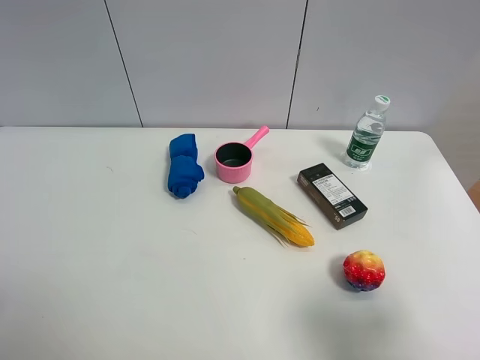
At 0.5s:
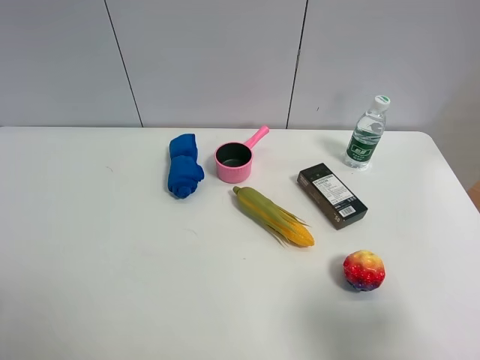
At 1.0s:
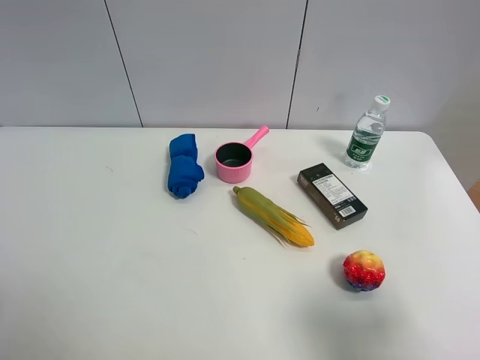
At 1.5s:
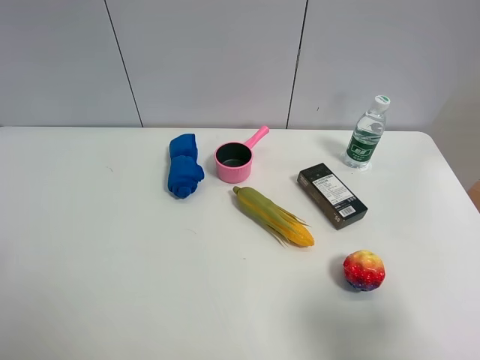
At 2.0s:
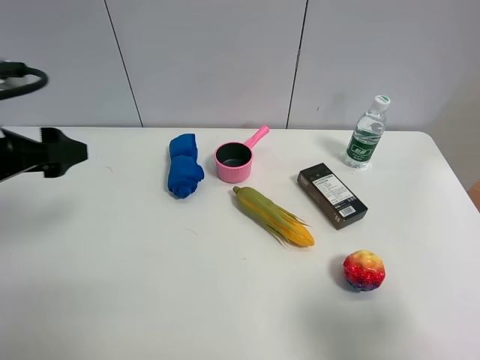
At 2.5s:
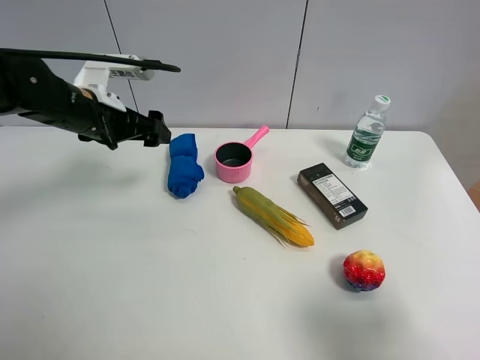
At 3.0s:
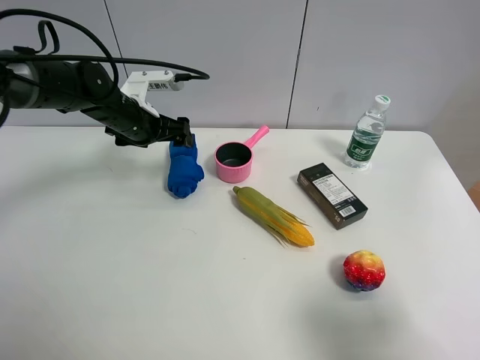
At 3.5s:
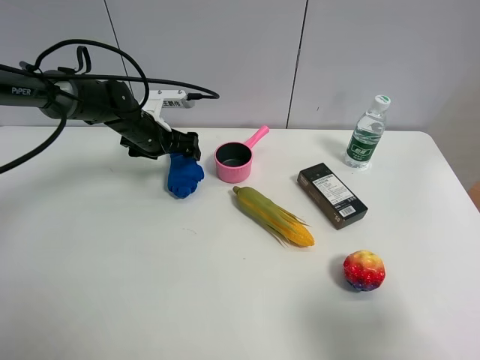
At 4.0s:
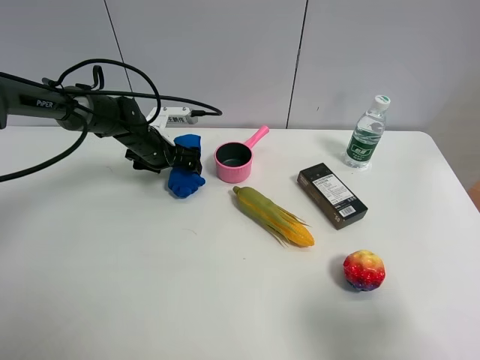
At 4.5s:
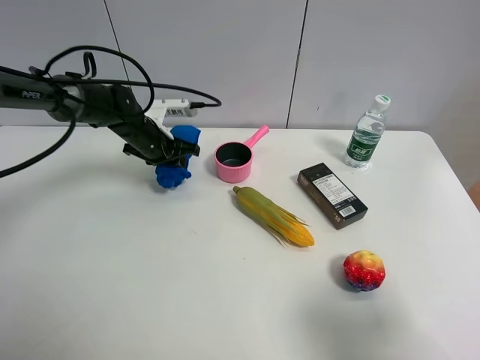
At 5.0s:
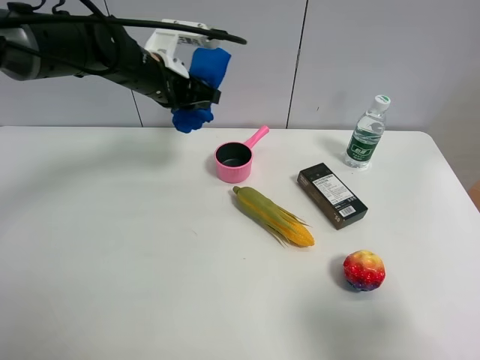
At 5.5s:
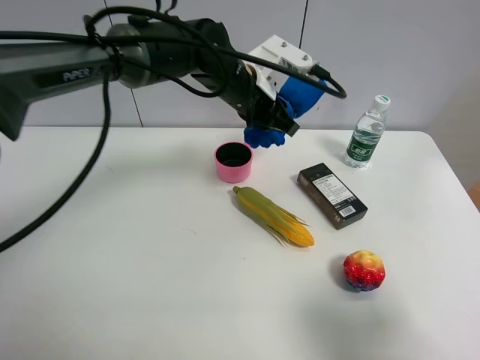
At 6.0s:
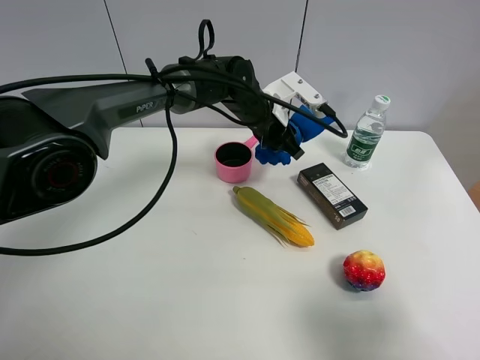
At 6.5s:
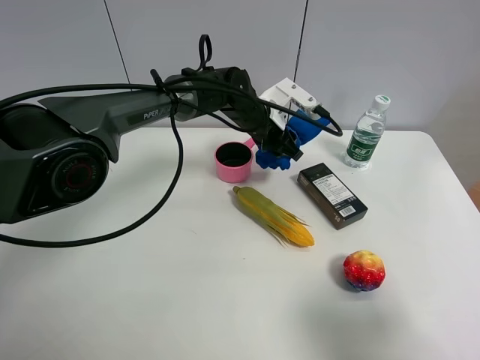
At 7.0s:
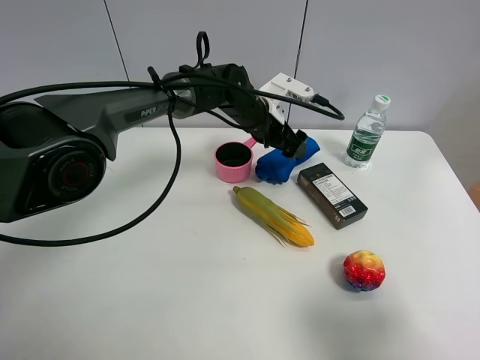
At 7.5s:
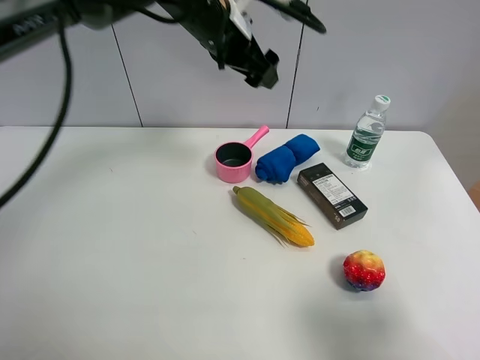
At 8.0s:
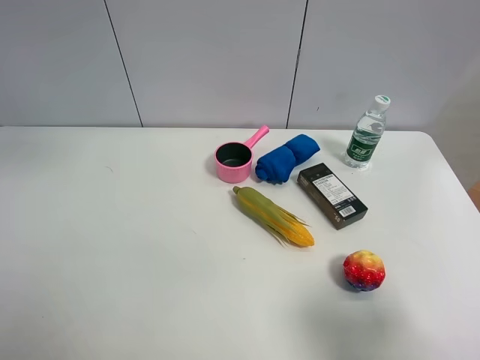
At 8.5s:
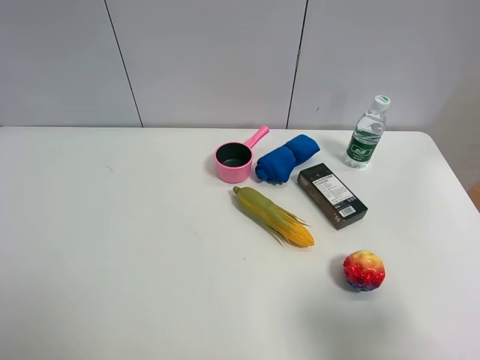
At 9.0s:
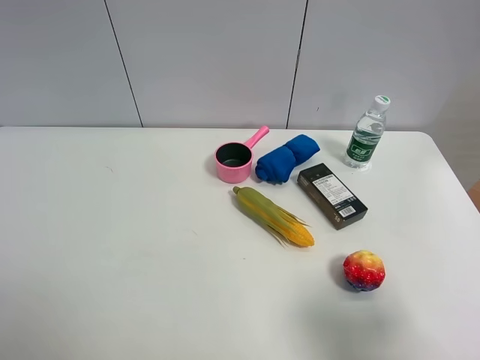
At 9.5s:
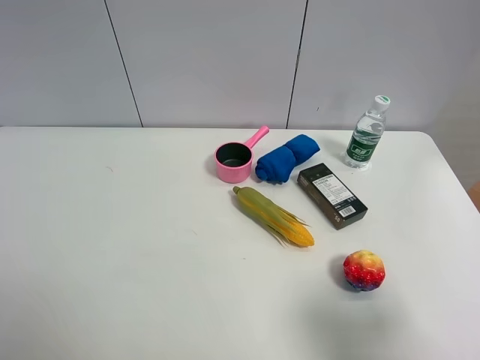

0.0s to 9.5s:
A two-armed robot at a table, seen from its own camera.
Task of the whole recording: the gripper move the object.
Step, 0.0s to 4.0s: Grasp the blue towel with the left gripper.
Step, 4.5s to 6.5s: Place the blue towel on the table with the left gripper.
0.0s to 2.0s: The left gripper goes roughly 20 cm forward.
2.0s to 4.0s: The left gripper moves forward, downward and to the right, approximately 30 cm.
4.0s to 5.5s: The left gripper is displaced to the right and upward by some 25 cm, and closes its fingers.
5.5s to 7.5s: The left gripper is displaced upward and to the left by about 10 cm, and opens its fingers.
7.5s to 9.5s: The left gripper goes some 50 cm backward and to the left.

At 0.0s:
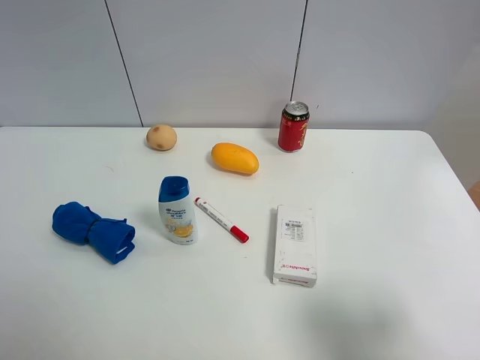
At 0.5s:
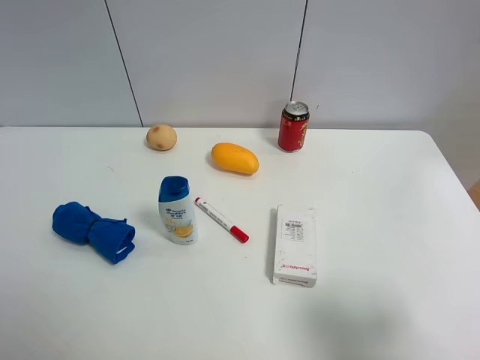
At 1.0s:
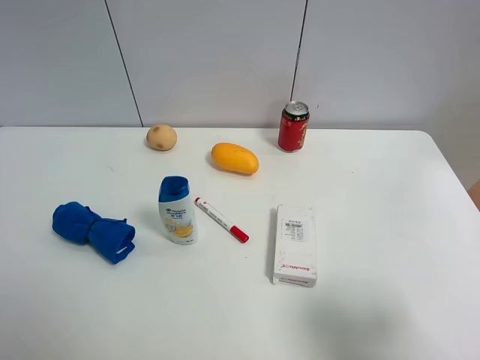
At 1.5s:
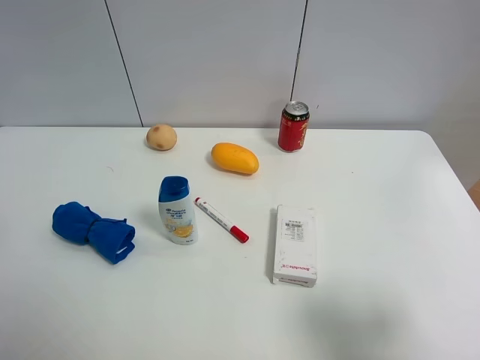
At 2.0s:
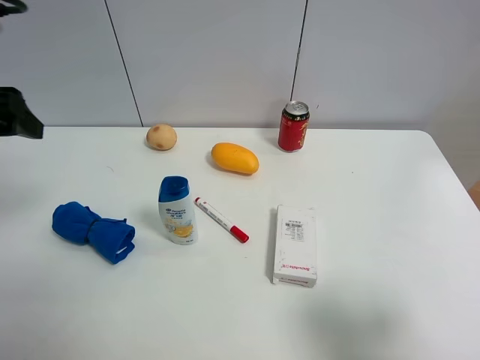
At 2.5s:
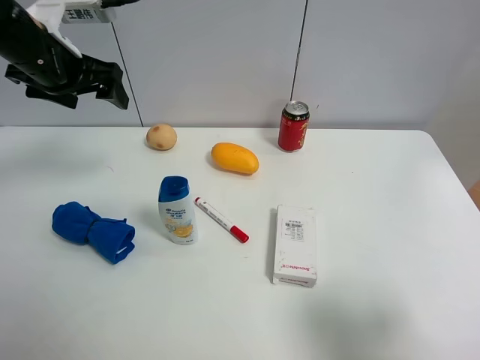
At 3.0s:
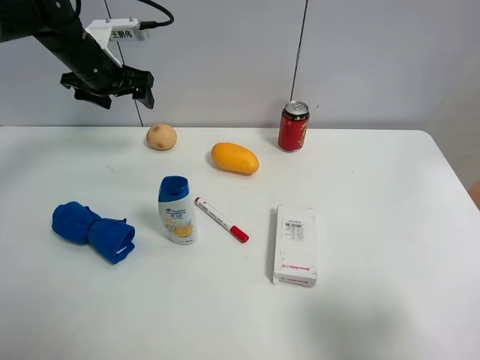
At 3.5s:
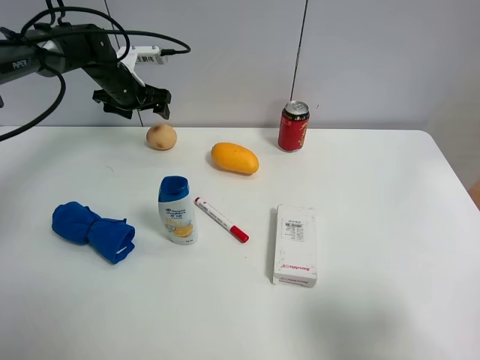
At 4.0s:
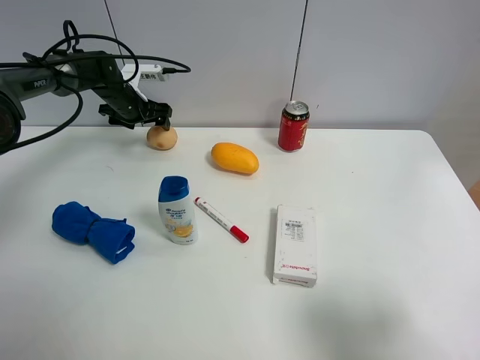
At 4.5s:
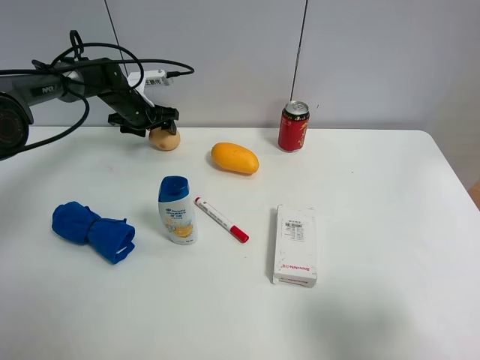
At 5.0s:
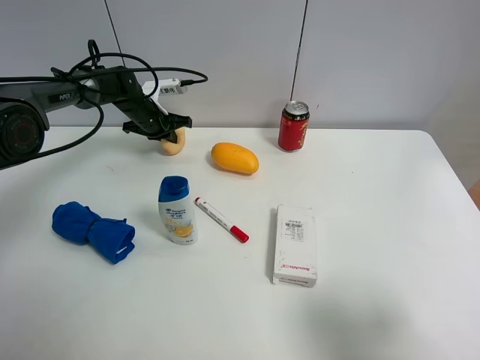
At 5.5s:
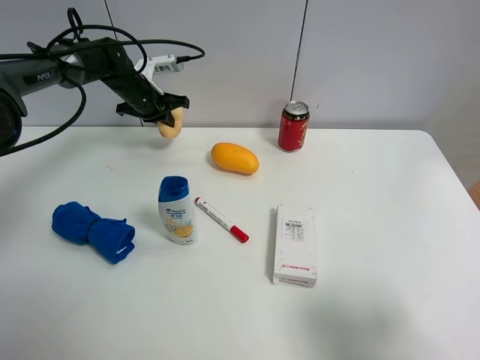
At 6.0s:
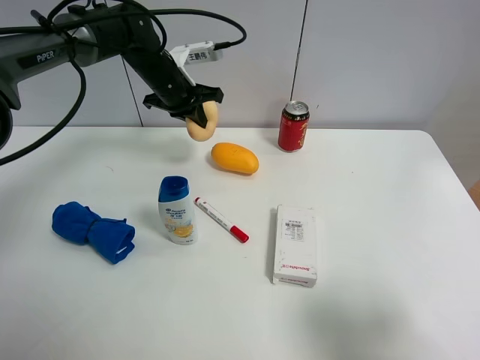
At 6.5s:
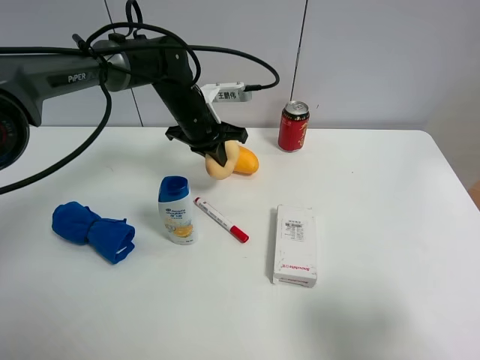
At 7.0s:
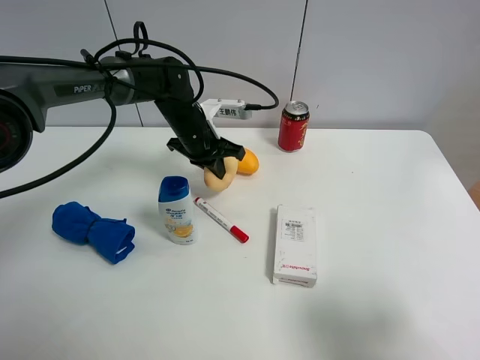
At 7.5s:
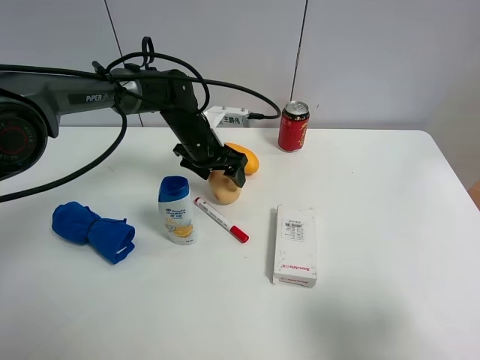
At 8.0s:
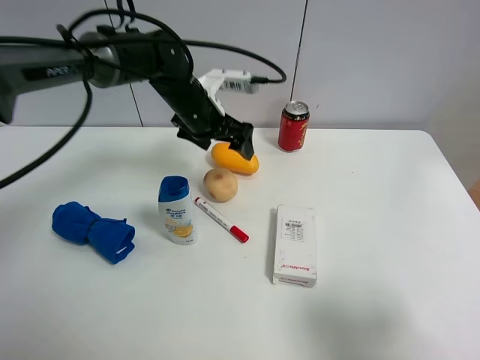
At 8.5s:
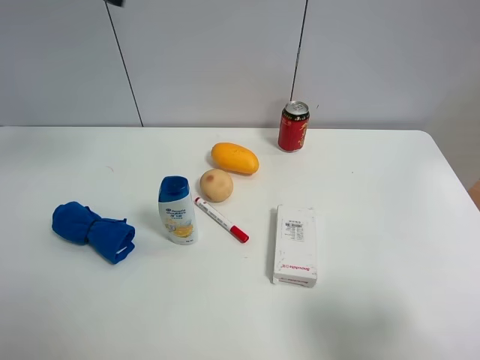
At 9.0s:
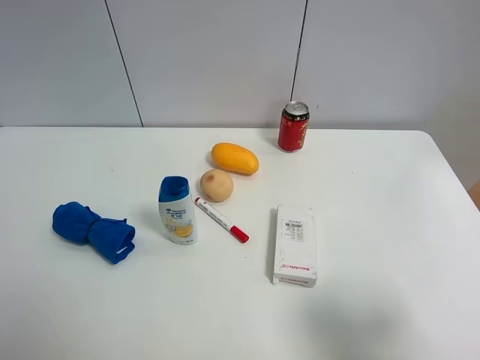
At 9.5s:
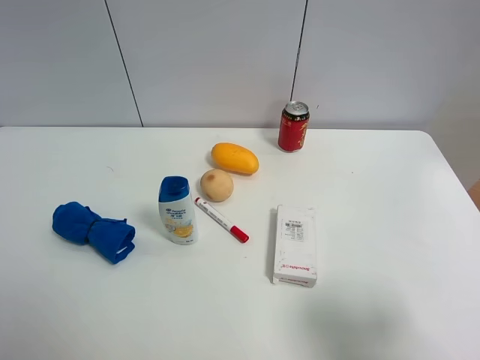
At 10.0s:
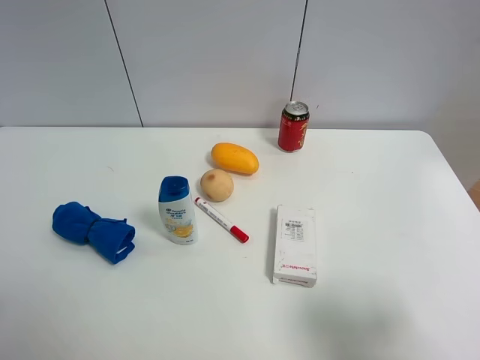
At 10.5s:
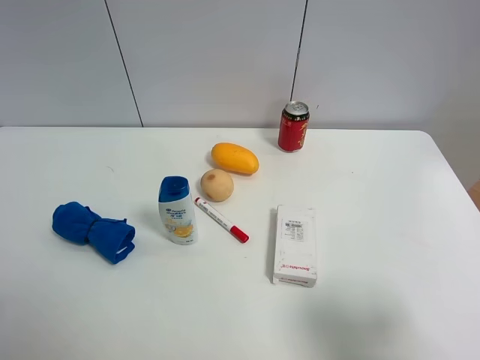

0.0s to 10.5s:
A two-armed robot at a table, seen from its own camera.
Task of the whole recording: the gripper move the object.
Step, 0.0s to 4.5s: Grasp the egg yolk pastry with the left gripper.
Step, 5.0s to 7.5s: Place the egg yolk pastry on the table with the left gripper.
0.0s to 2.0s: The left gripper travels forward by approximately 25 cm.
2.0s to 4.0s: The left gripper moves forward and downward, some 35 cm.
4.0s to 6.5s: The left gripper goes about 20 cm to the right and backward, and closes up.
6.5s to 8.5s: The left gripper moves upward and to the left, about 30 cm, and opens up.
8.5s to 10.5s: The left gripper travels backward and downward by approximately 35 cm.

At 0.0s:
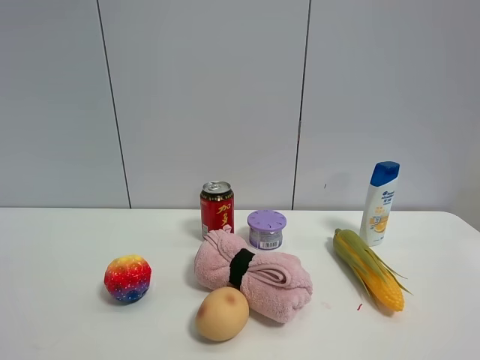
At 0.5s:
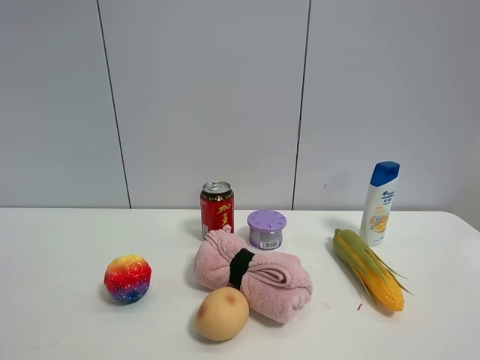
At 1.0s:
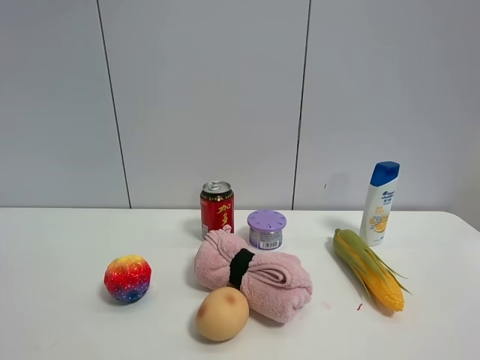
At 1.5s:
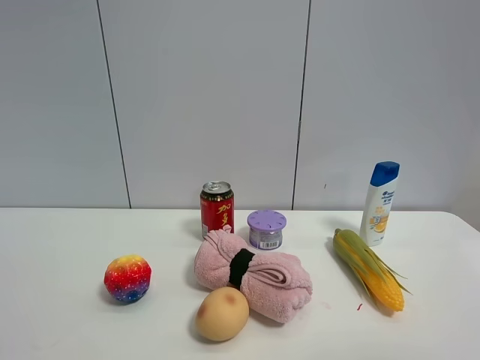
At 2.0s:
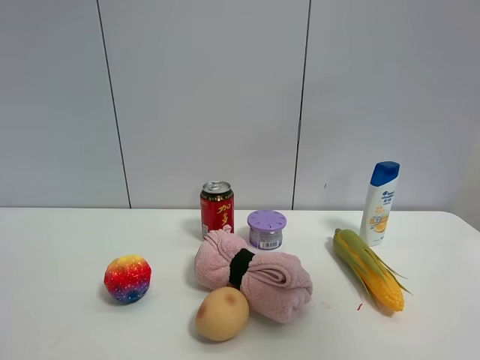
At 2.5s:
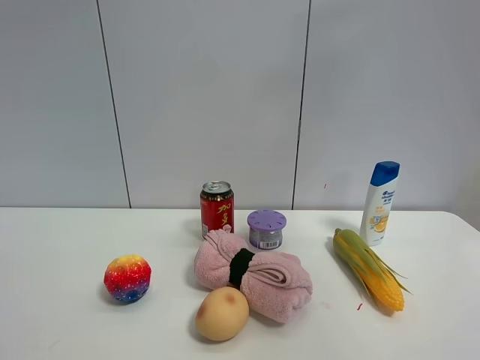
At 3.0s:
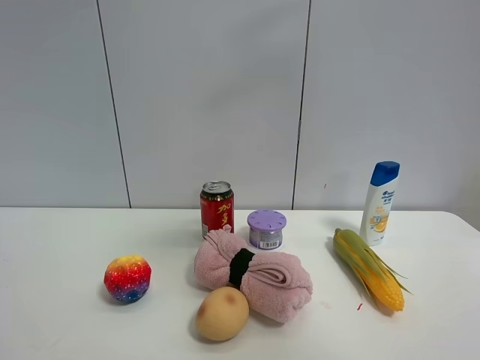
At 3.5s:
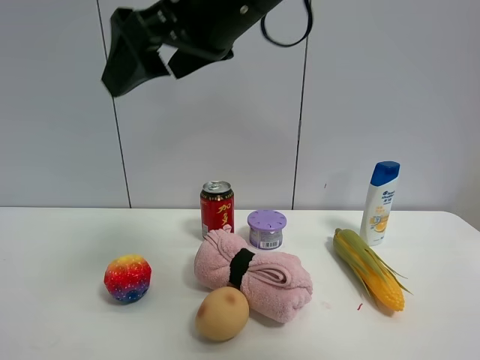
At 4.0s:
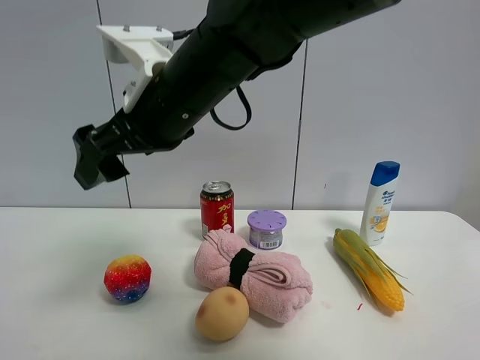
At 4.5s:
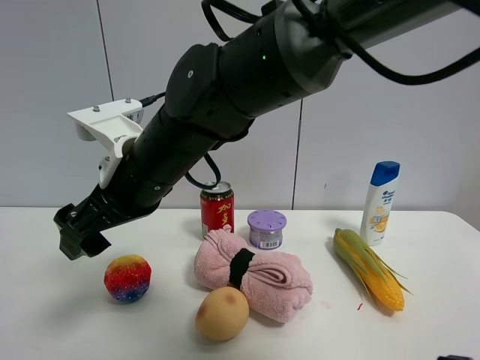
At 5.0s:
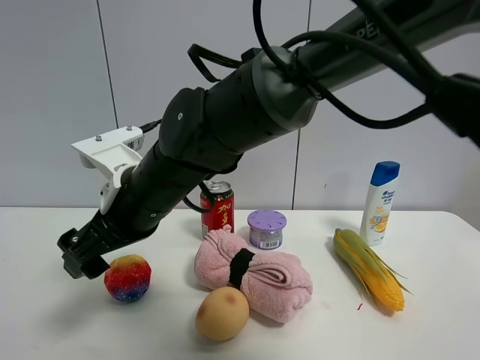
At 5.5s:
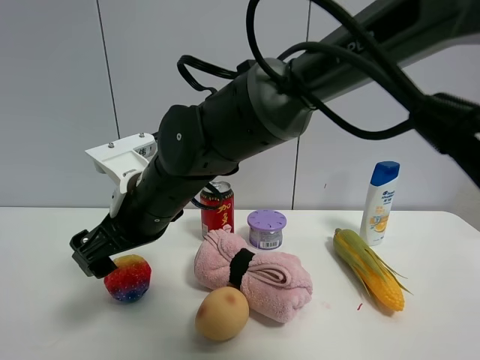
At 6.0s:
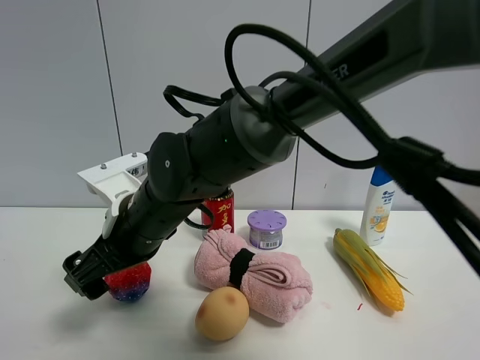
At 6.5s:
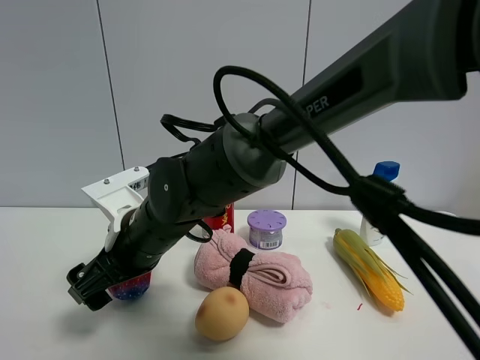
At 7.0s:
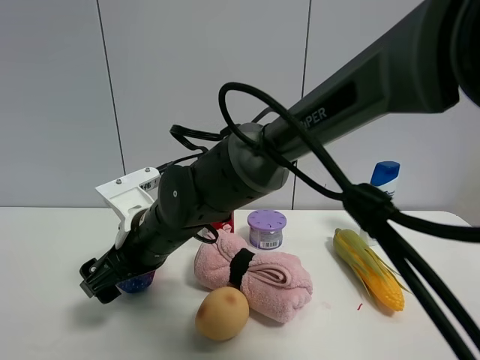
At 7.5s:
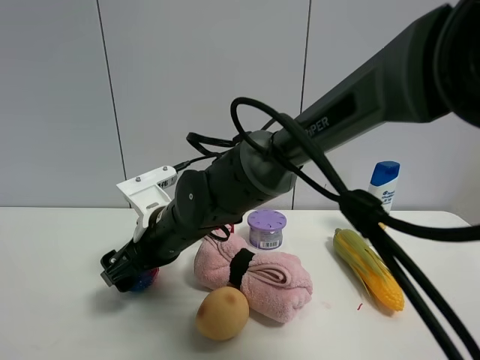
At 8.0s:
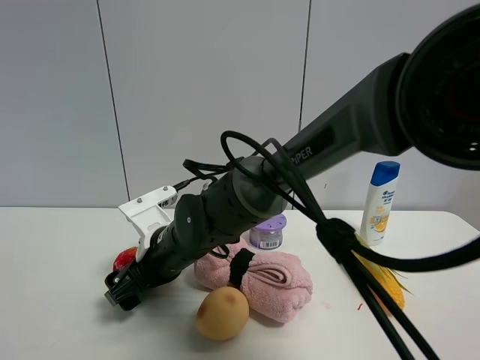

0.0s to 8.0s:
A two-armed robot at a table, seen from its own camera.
Task of the whole recording: the gripper move the object.
0.0s to 2.0s: The right gripper moves upward and forward, some 20 cm.
2.0s to 4.0s: The right gripper shifts roughly 40 cm to the left, forward and downward.
4.0s to 6.0s: The right gripper travels downward by some 15 cm.
6.0s to 8.0s: The right gripper moves downward, roughly 5 cm.
